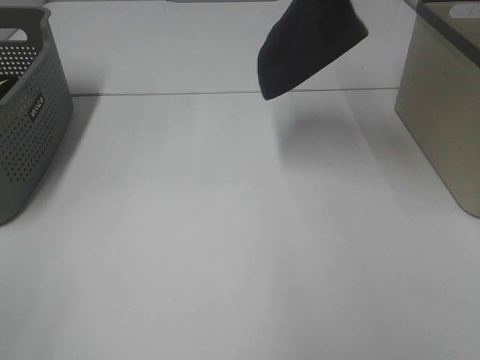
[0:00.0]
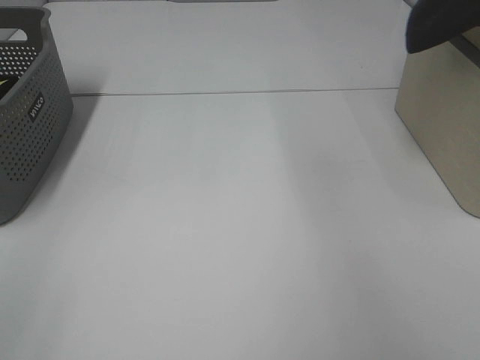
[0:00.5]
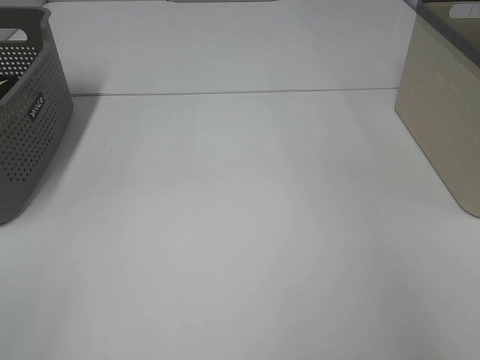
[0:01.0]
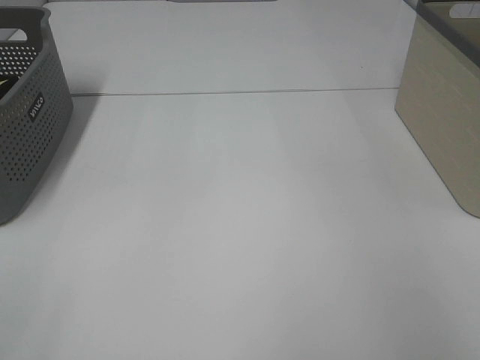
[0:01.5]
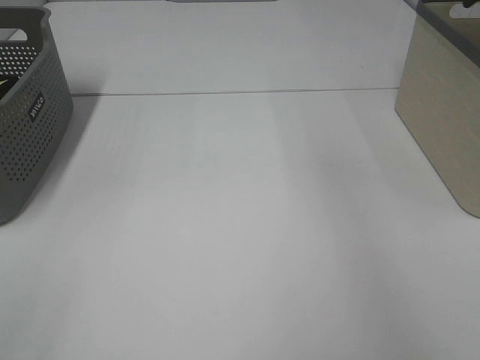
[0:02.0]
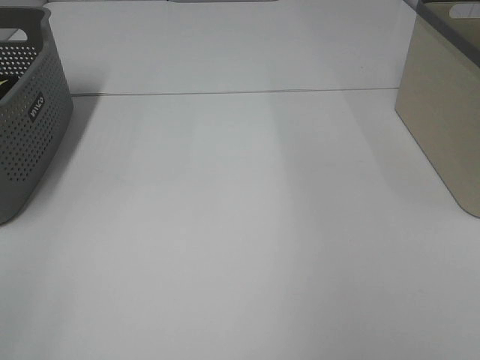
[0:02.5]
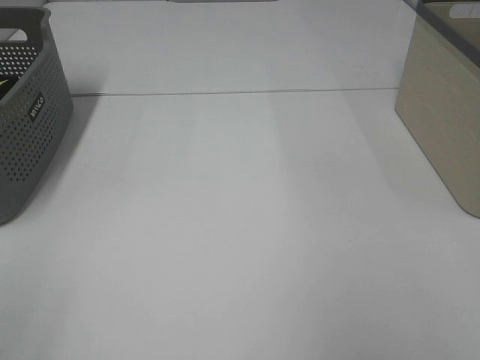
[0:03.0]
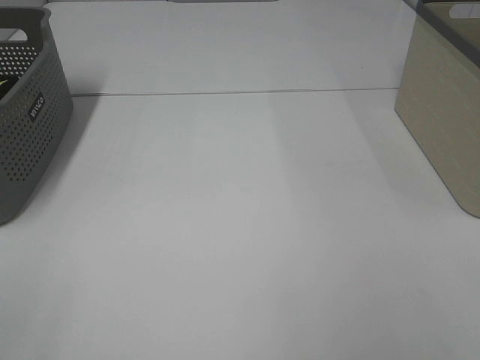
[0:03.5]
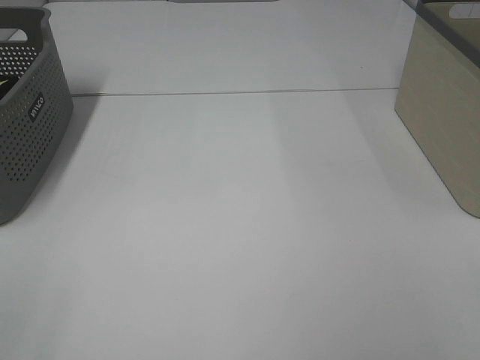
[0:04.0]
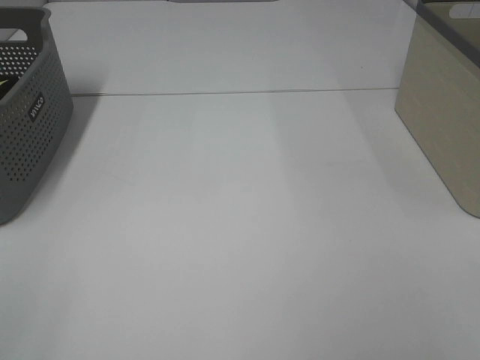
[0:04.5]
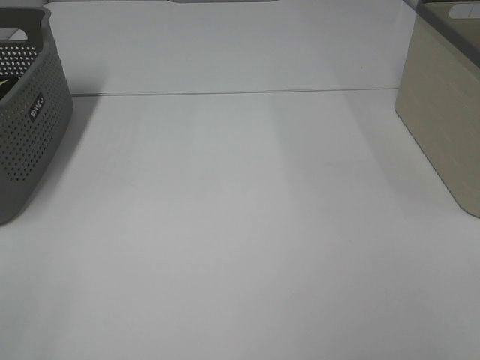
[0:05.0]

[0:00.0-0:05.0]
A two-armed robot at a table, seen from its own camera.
Step, 0:00.0 to 0:01.5: Right hand: place the grey towel in right basket.
0:00.0 to 0:02.5: The right gripper goes some 15 cm to the right and backward, and opens up.

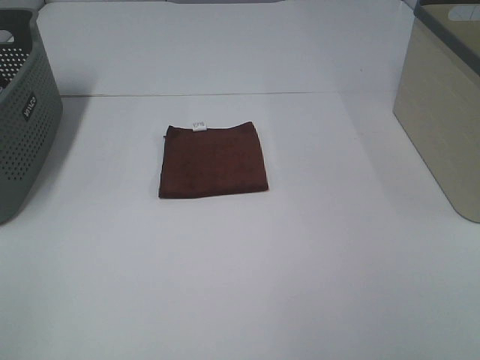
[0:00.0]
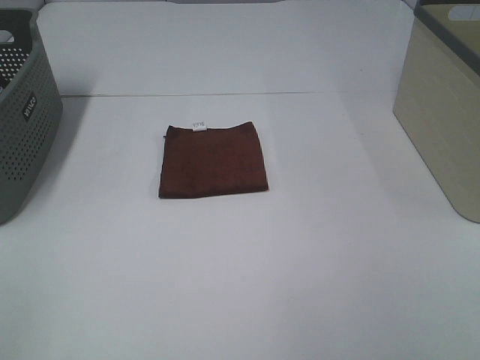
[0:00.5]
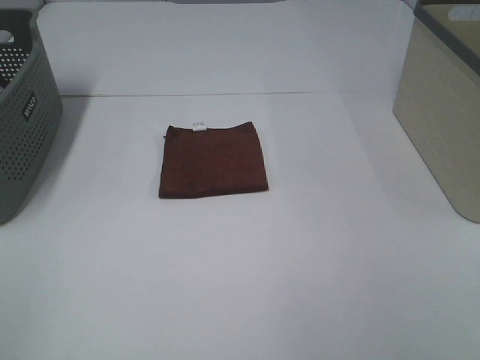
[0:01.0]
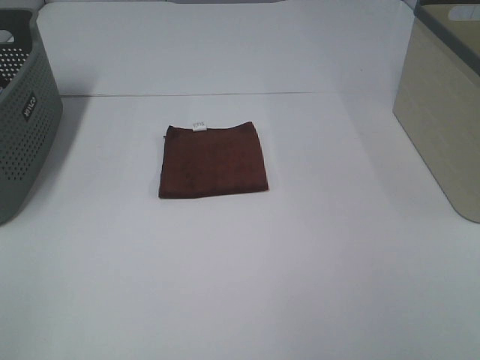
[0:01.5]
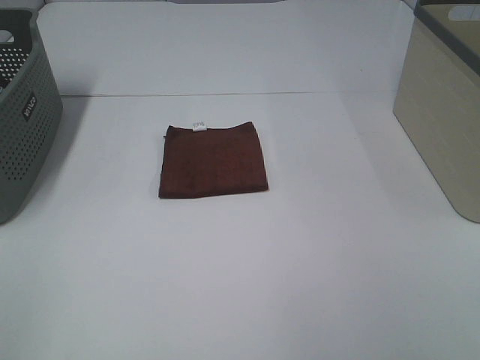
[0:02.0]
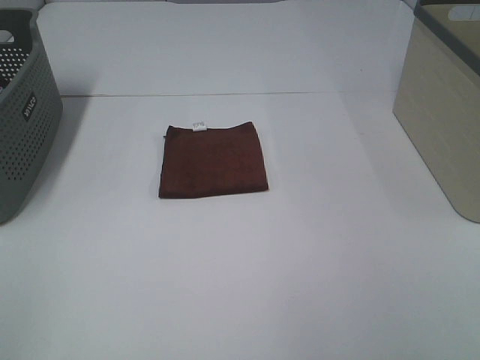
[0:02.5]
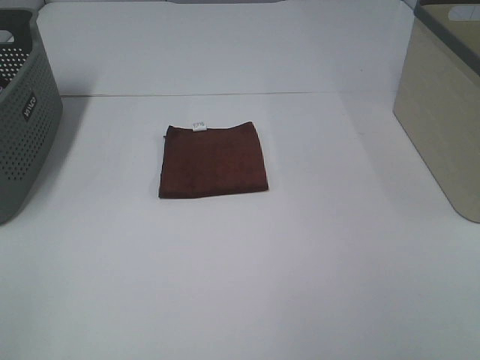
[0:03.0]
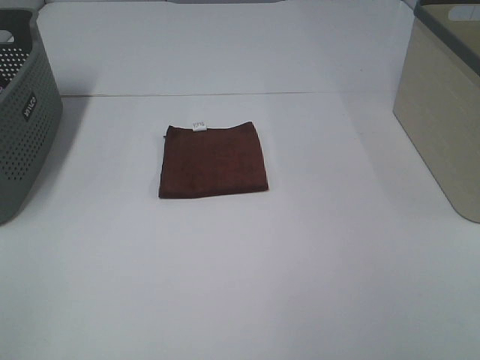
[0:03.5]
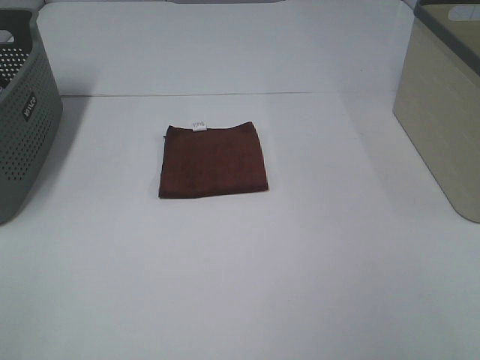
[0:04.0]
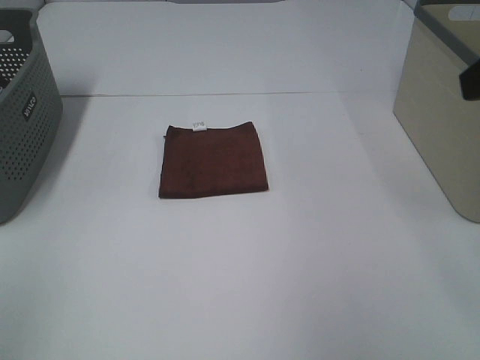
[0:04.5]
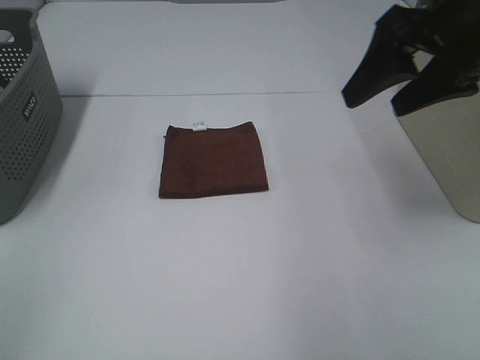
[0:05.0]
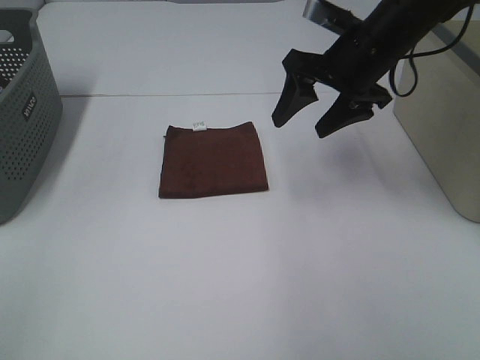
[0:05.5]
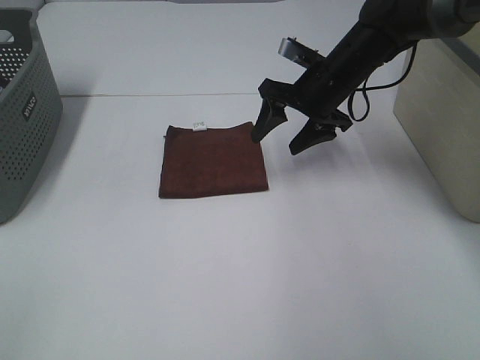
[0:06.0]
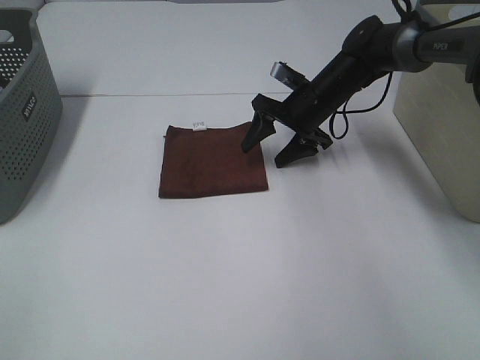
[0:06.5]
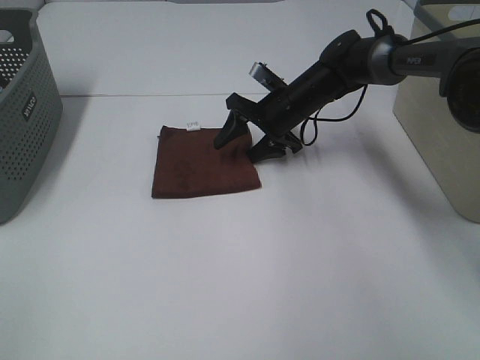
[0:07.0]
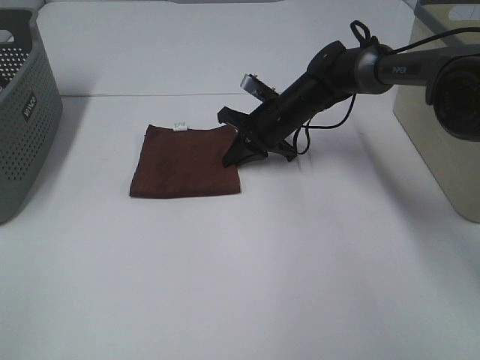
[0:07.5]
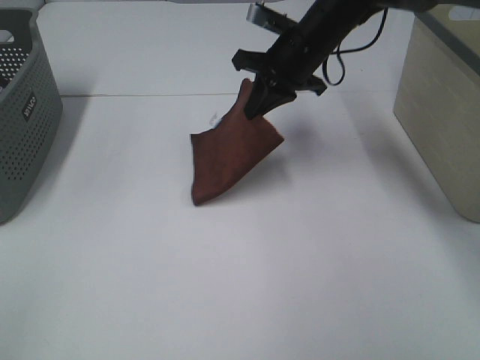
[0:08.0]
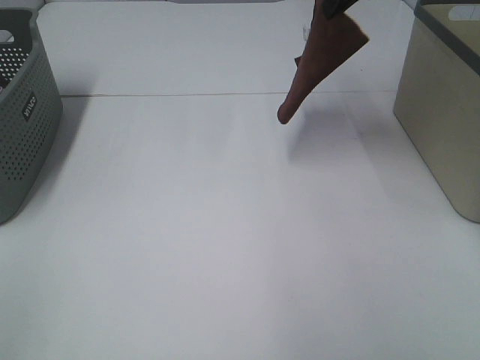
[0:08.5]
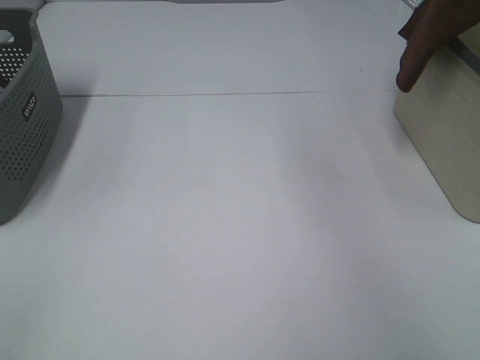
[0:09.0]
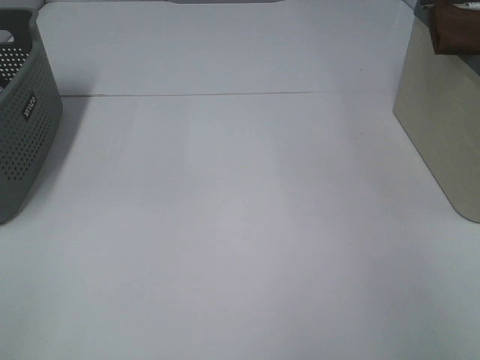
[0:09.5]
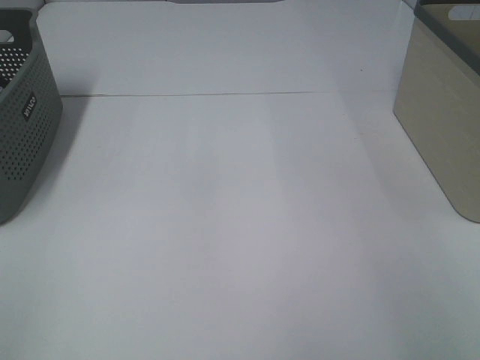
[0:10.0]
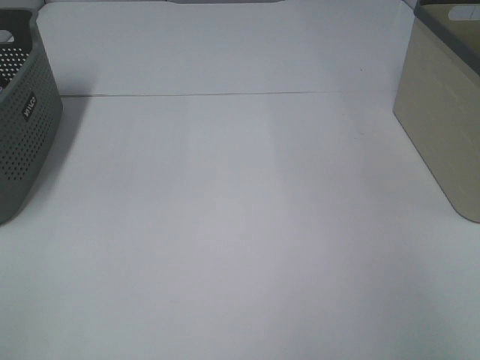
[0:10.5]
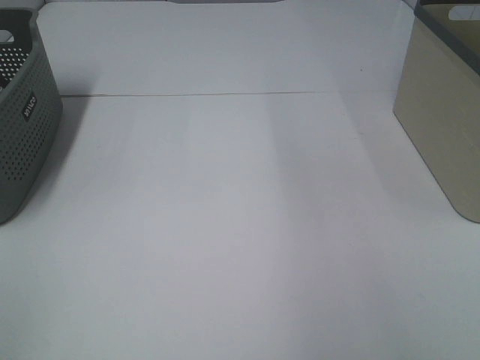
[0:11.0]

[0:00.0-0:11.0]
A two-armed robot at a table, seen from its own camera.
Step, 0:00.0 to 0:07.0: Right hand: grab the folded brown towel.
Step, 0:07.5 to 0:10.0: Right hand: place the brown towel in right basket.
0:00.0 to 0:03.5: The two grippers keep their place.
0:03.5 to 0:05.5: The right gripper is displaced forward by some 40 cm.
0:05.5 to 0:07.5: The right gripper moves downward, forward and to the left, roughly 15 cm, and closes its fingers.
0:07.5 to 0:09.0: The right gripper travels upward and to the right by roughly 40 cm.
0:09.0 to 0:11.0: The right gripper heads backward, covering about 5 cm, moves about 15 cm to the right and comes back, and opens up.

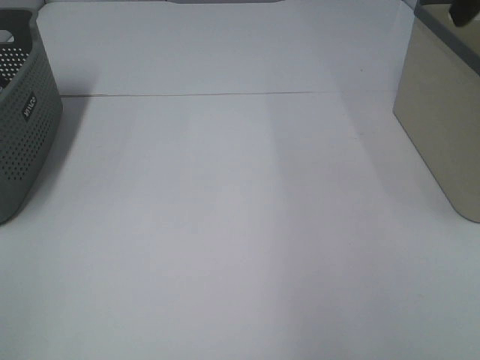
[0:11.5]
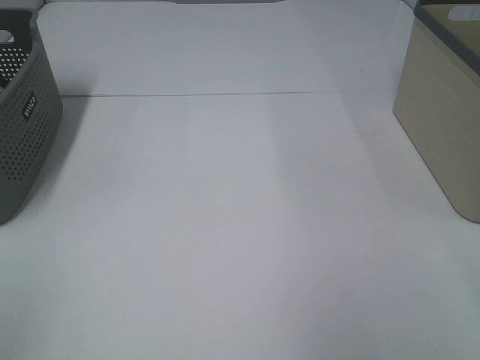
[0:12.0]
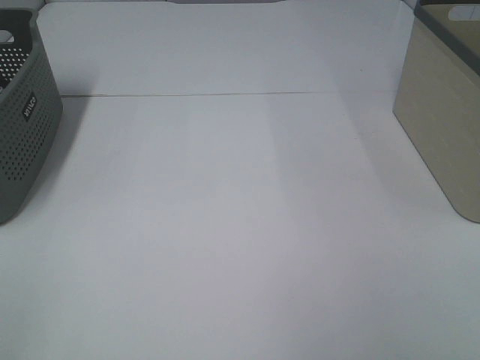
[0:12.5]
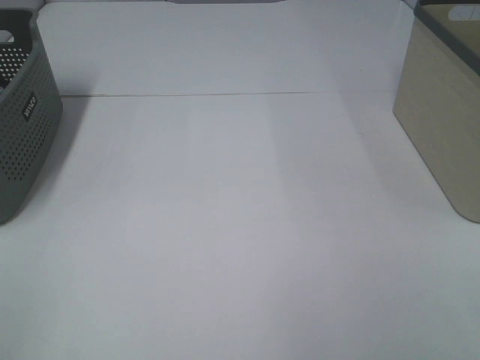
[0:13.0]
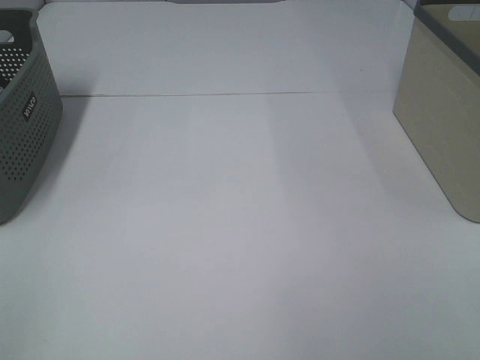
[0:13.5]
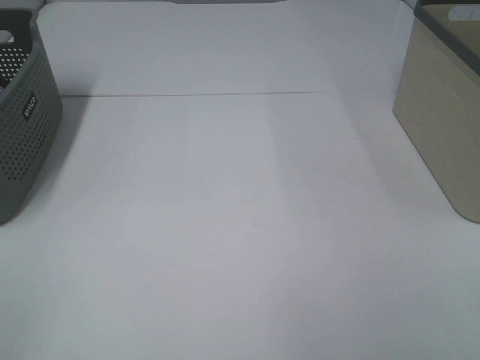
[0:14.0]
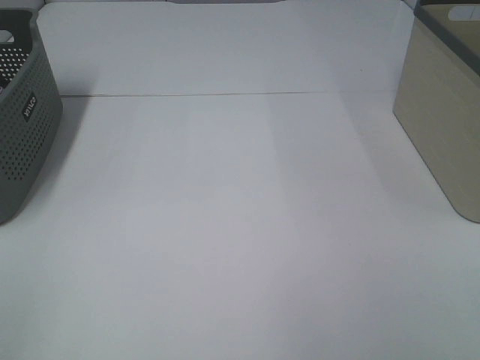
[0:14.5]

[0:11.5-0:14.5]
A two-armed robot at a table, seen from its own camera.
0:13.0 to 0:14.5: Both grippers stay about where they are.

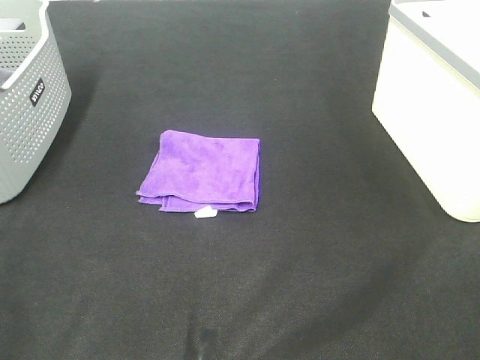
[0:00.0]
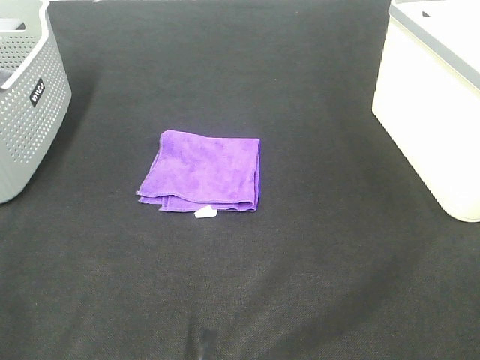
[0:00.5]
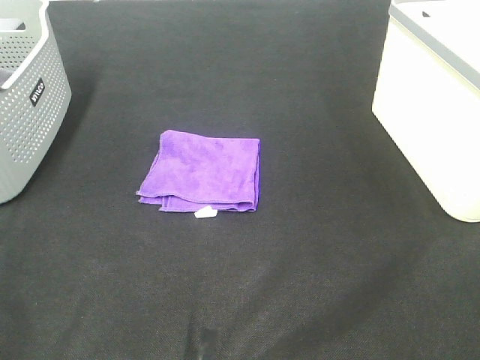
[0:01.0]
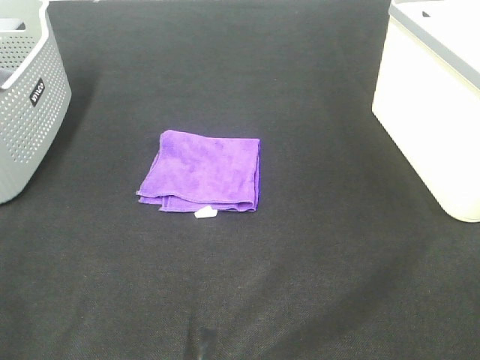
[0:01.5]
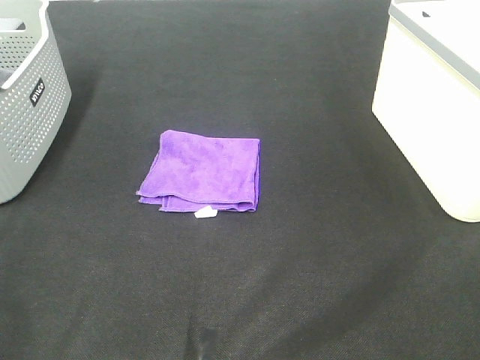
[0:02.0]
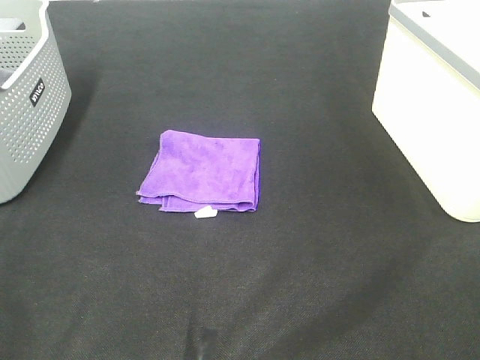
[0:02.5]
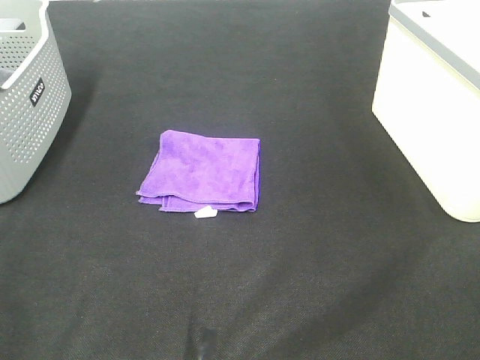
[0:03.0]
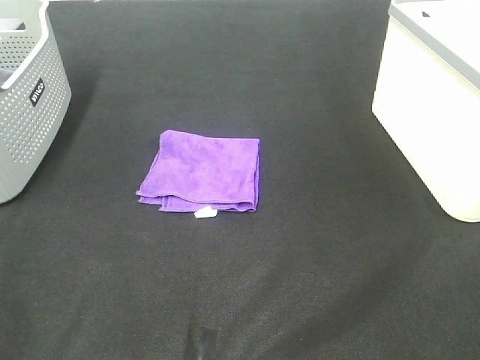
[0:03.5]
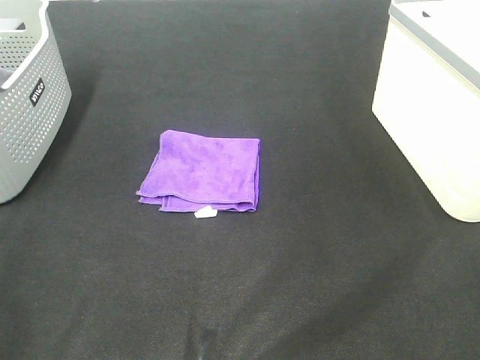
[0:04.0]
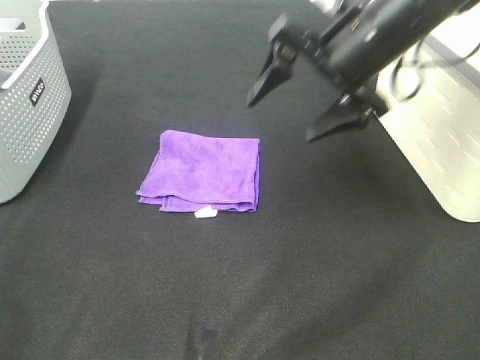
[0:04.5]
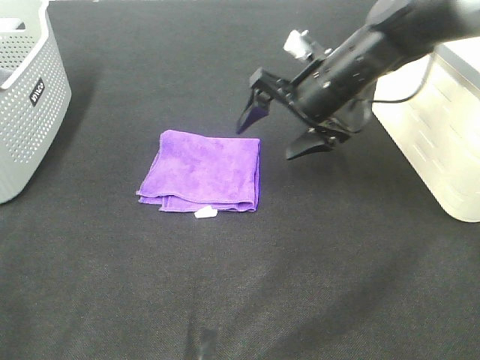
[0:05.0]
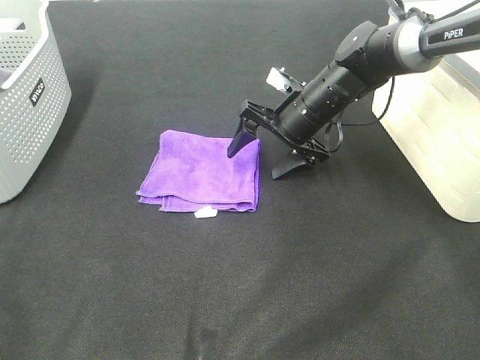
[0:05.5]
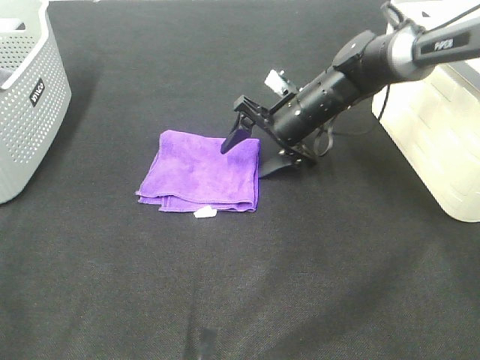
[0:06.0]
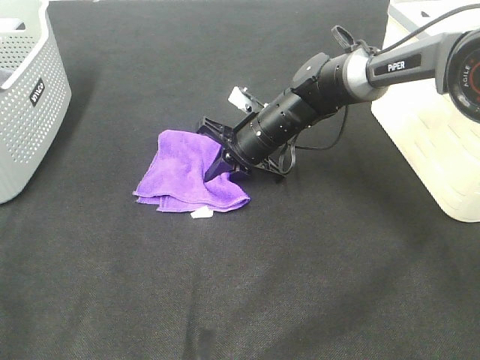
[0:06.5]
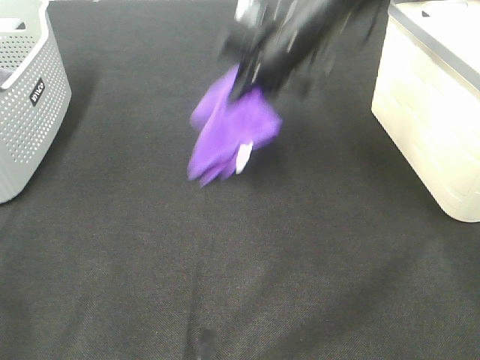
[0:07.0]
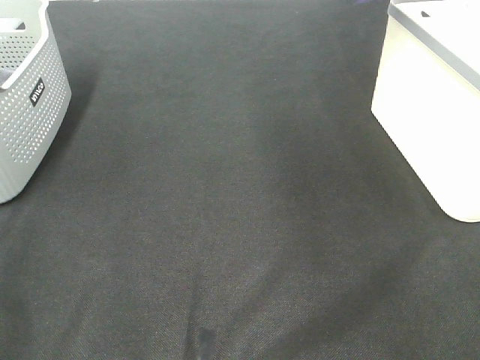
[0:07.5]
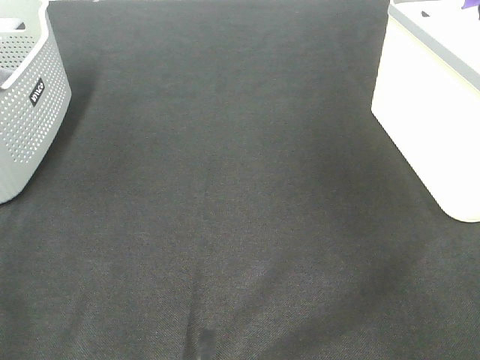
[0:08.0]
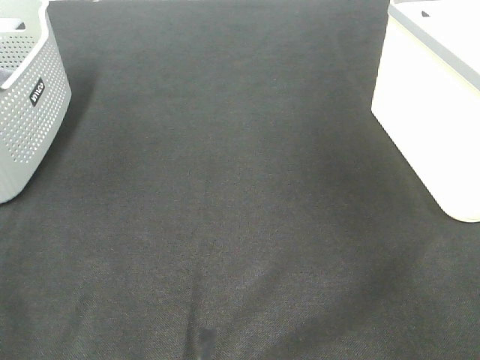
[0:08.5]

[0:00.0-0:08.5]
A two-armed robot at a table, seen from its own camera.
Step, 0:00.0 to 0:06.5: Right hand: grab the folded purple towel.
Step, 0:07.0 to 0:08.0: Right hand: place the purple towel in right basket.
0:00.0 to 0:02.0: Both grippers stay put.
0:04.0 to 0:06.5: The right gripper shifts roughly 50 cm downward, forward and to the left, and closes its fingers.
0:06.5 to 0:08.5: The right gripper moves upward and to the right, approximately 50 cm, and opens its fingers.
